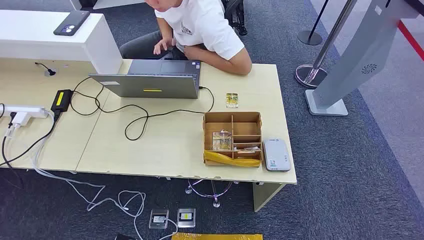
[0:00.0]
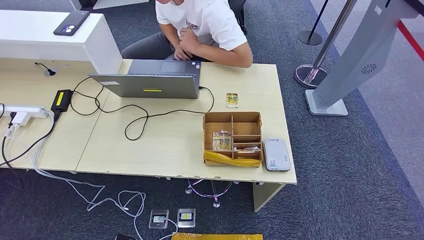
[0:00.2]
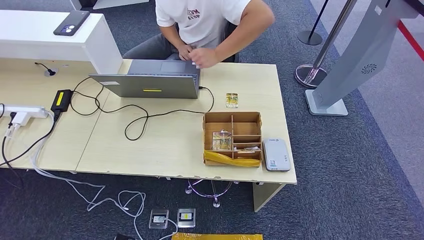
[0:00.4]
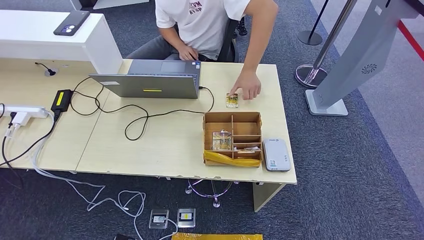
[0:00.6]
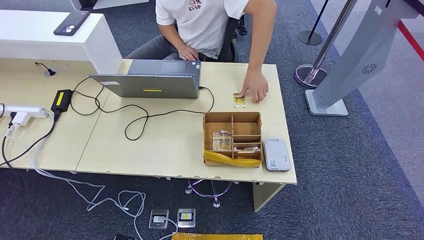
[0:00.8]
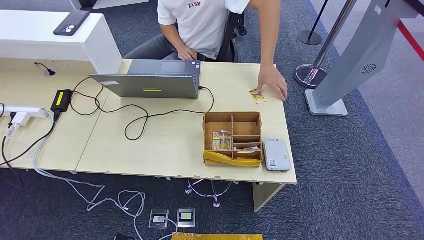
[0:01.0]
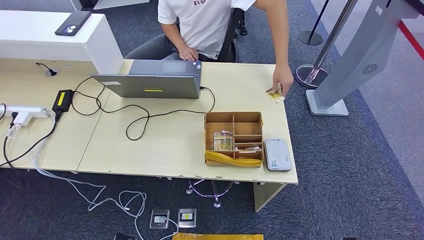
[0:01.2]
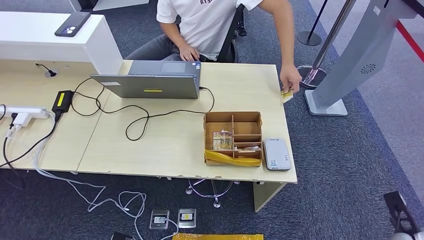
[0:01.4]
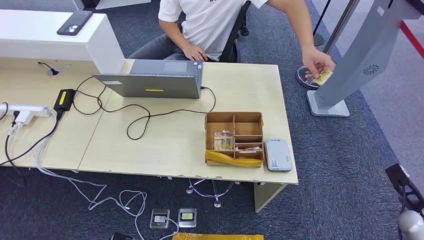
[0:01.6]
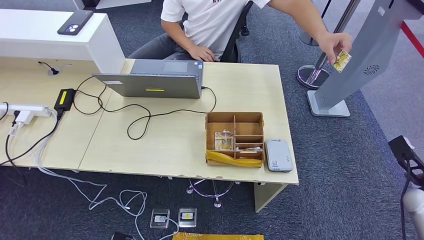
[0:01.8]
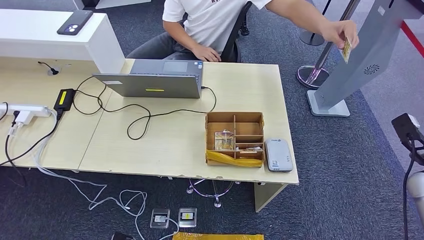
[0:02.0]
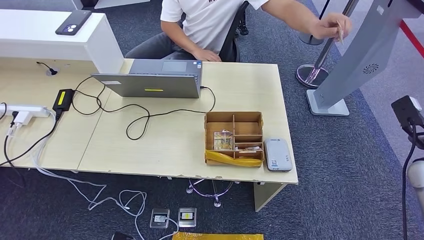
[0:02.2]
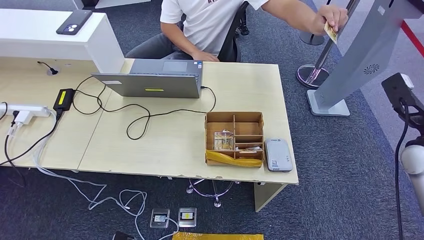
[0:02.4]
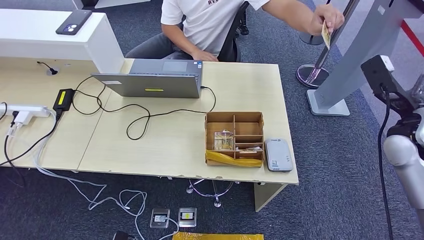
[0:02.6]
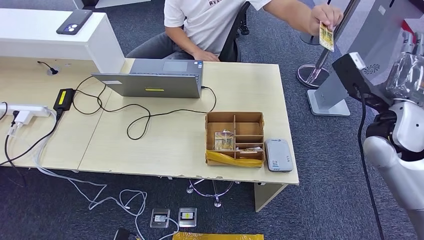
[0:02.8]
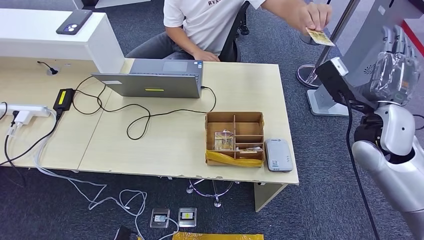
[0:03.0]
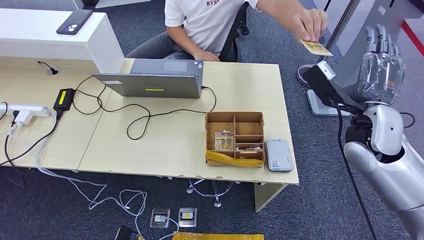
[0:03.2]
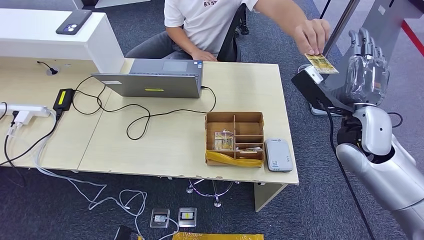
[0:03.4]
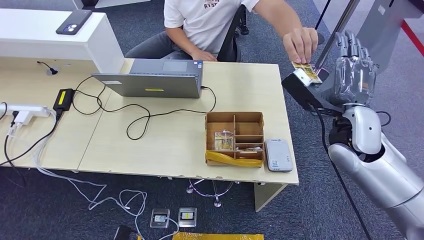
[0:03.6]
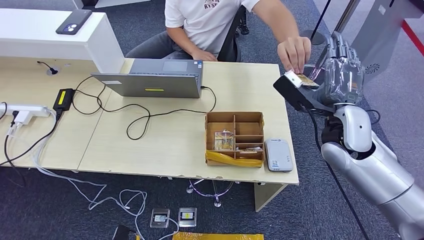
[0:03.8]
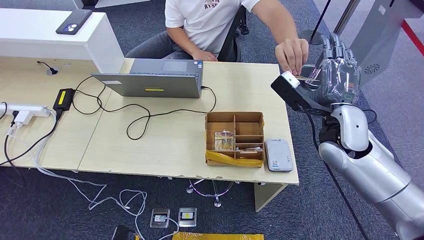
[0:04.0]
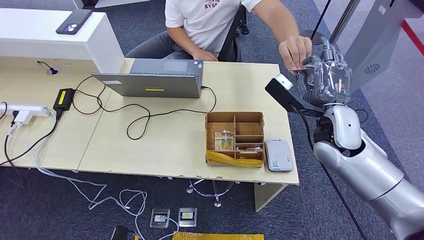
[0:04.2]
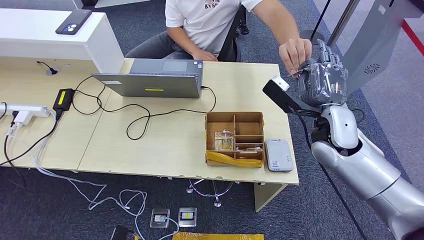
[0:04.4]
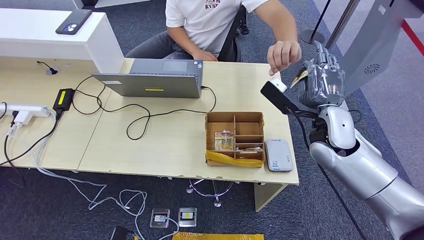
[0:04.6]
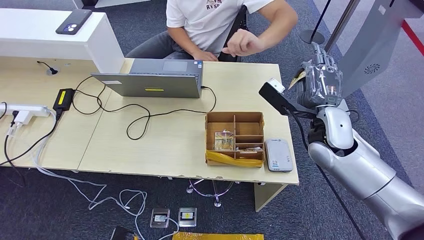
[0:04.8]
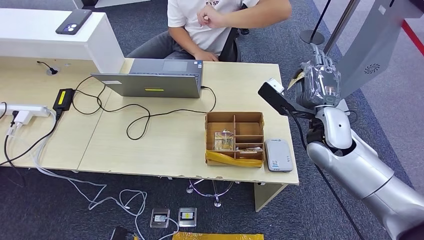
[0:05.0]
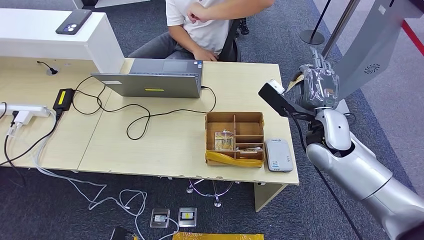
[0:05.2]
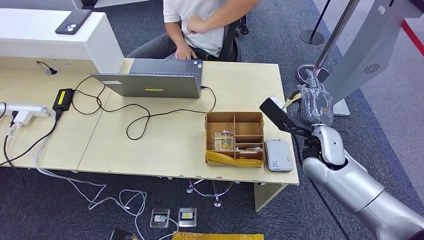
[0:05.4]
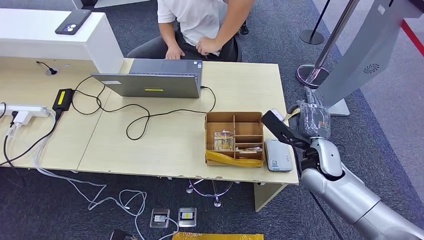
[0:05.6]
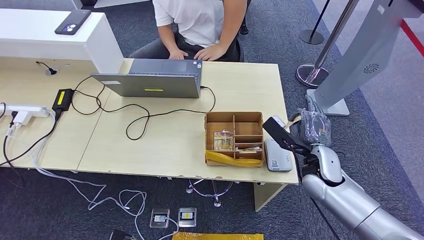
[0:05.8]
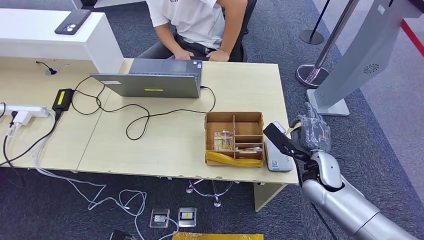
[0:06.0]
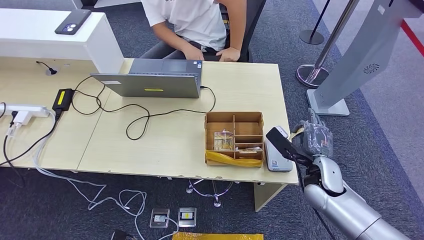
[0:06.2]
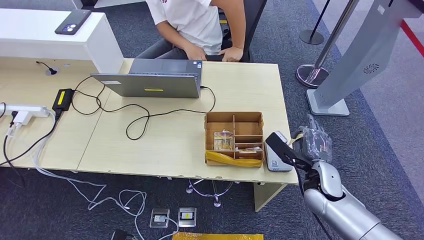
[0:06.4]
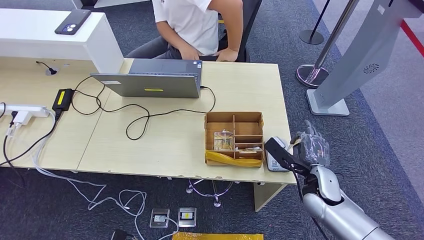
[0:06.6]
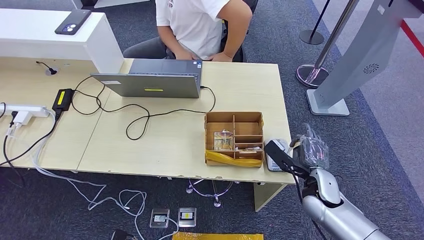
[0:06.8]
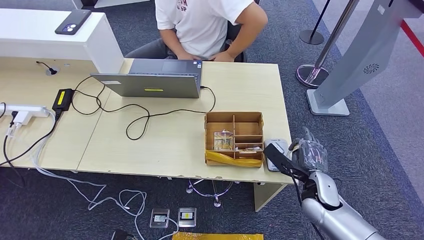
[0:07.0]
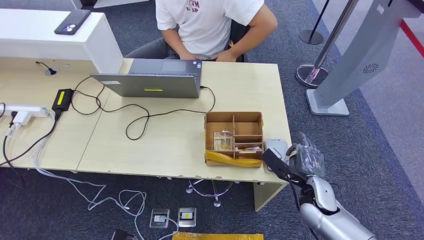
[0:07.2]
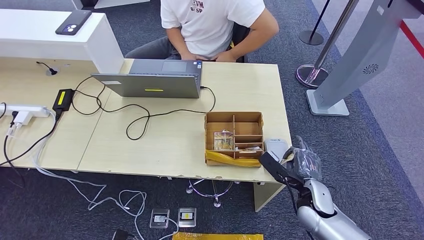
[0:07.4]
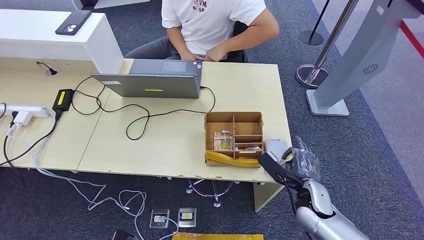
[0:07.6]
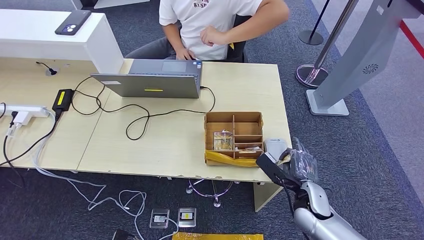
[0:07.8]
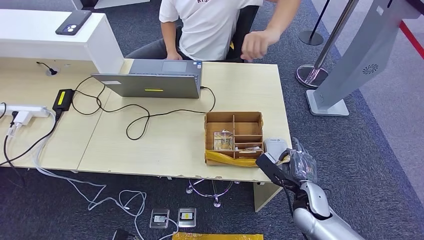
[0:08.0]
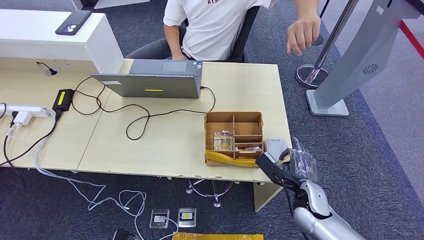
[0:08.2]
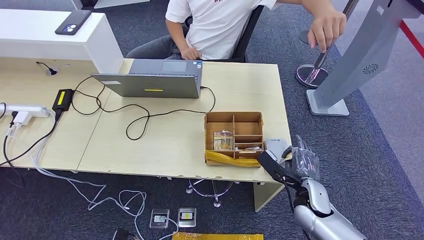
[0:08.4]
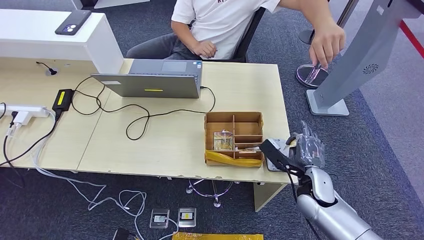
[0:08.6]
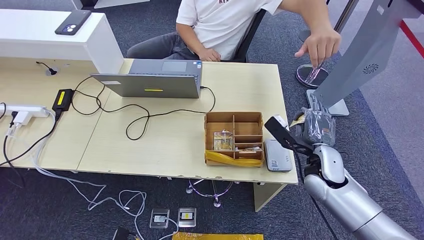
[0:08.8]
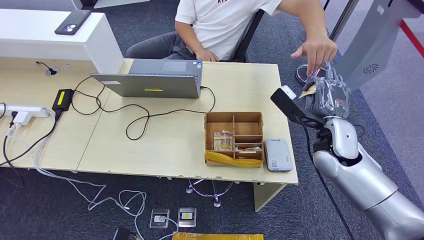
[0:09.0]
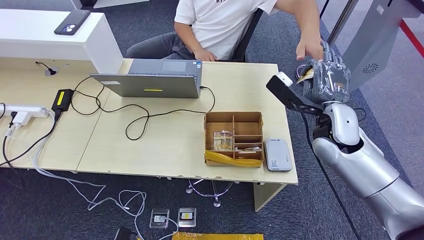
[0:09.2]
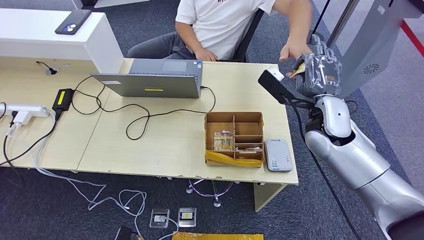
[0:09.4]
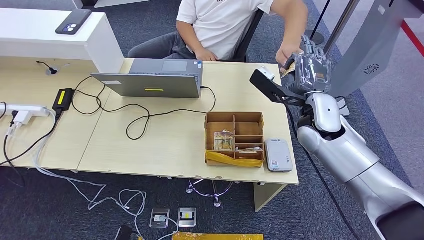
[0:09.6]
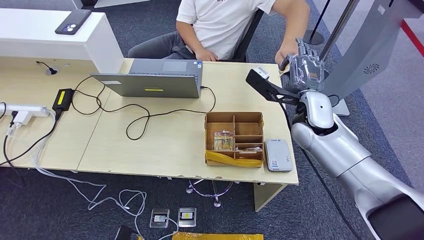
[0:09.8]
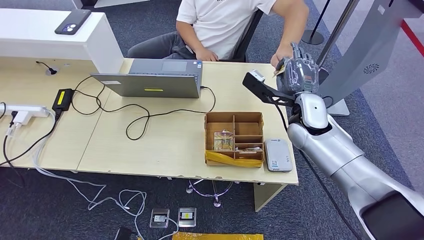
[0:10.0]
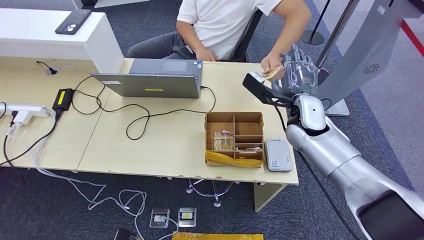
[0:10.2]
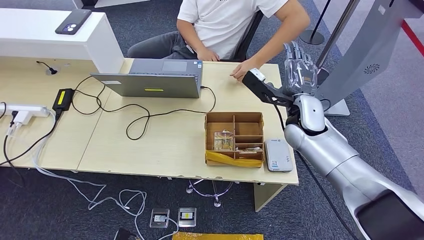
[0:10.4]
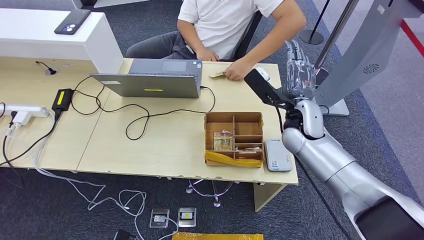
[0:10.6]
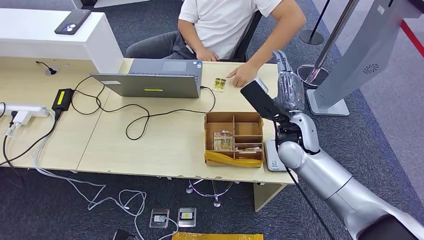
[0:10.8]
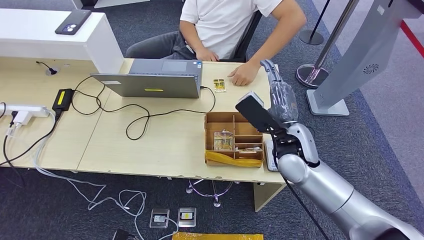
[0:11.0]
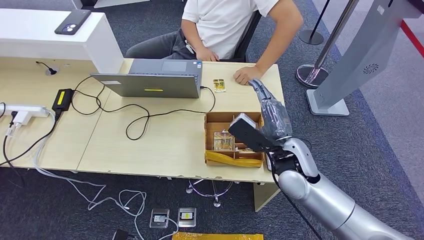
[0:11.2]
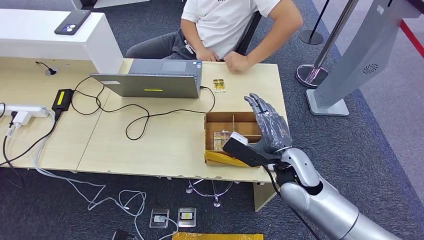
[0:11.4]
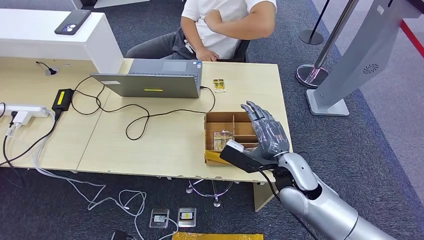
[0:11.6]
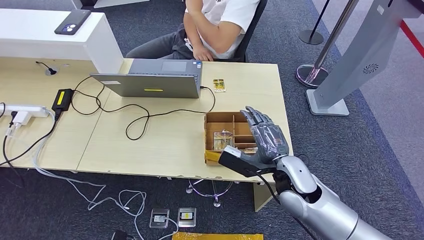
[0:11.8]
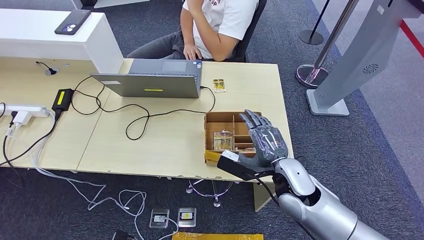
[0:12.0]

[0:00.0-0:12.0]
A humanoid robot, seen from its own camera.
Step, 0:00.0 to 0:05.2: Take the ID card from the person's hand.
Step, 0:05.4 to 0:07.6: Place the ID card on the card reader.
Step, 0:07.8 to 0:10.6: Hand the ID card to the person.
0:01.6 to 0:03.0: The right hand goes some 35 cm upward, to the left and forward.
0:03.0 to 0:04.4: The right hand moves to the left, some 5 cm.
0:06.0 to 0:07.6: The right hand is displaced downward by some 5 cm.
0:07.6 to 0:09.0: The right hand moves upward and forward, approximately 20 cm.
0:09.0 to 0:10.4: The right hand shifts approximately 10 cm to the left and forward.

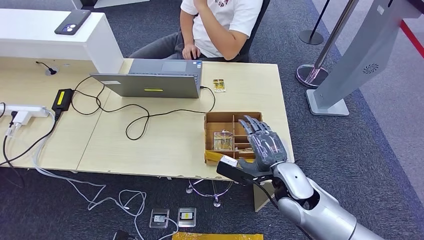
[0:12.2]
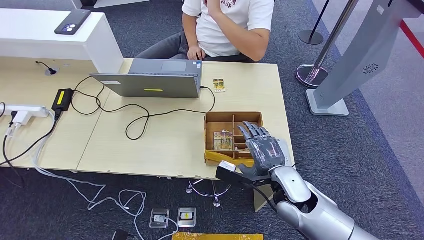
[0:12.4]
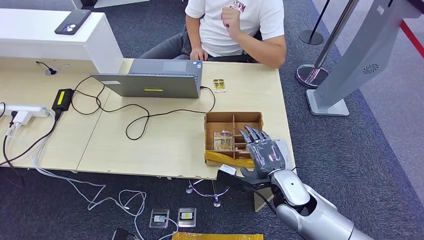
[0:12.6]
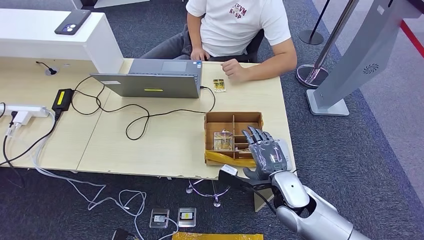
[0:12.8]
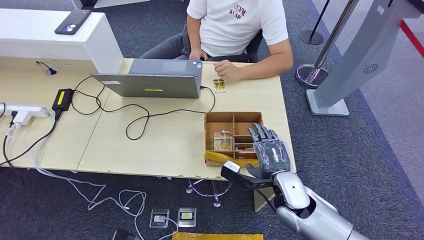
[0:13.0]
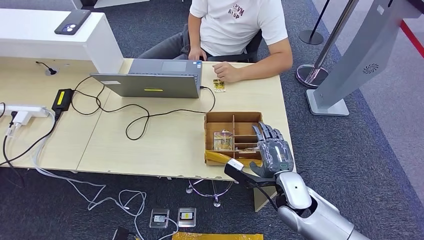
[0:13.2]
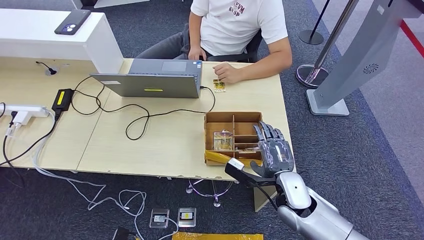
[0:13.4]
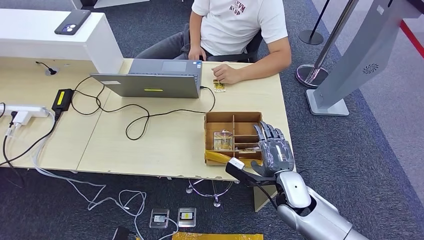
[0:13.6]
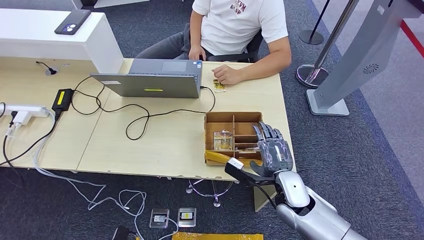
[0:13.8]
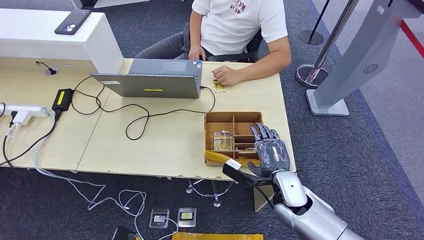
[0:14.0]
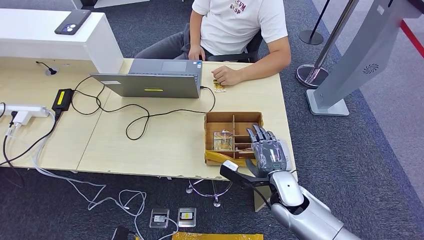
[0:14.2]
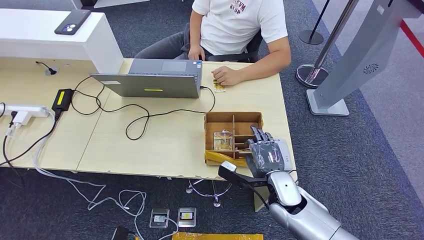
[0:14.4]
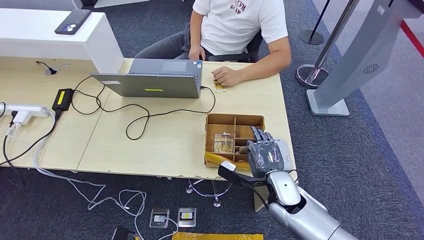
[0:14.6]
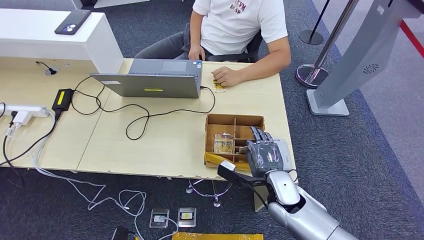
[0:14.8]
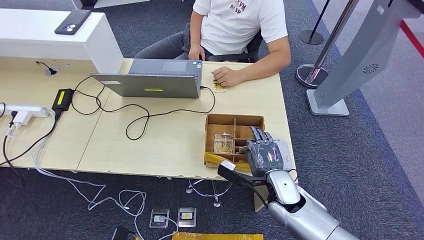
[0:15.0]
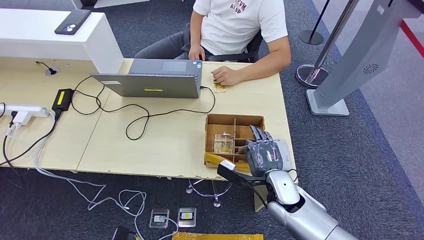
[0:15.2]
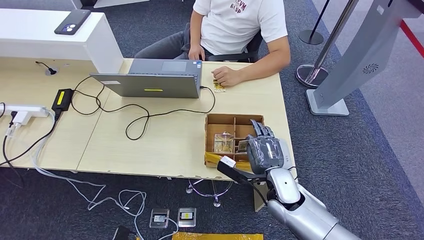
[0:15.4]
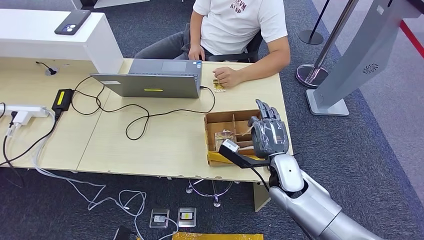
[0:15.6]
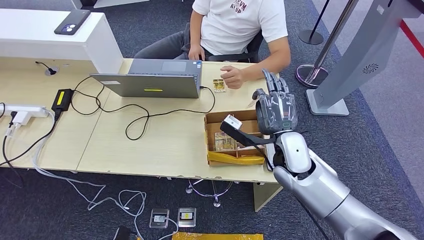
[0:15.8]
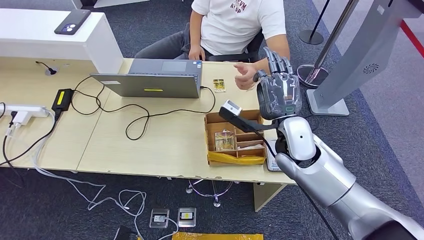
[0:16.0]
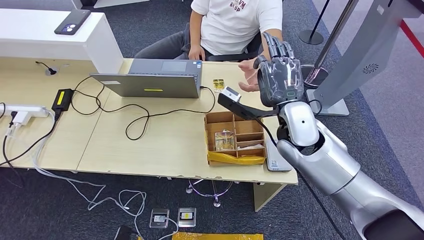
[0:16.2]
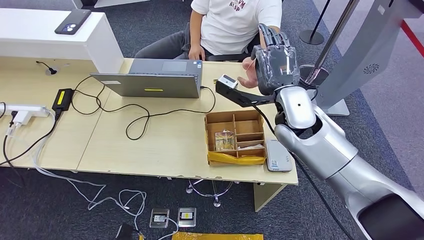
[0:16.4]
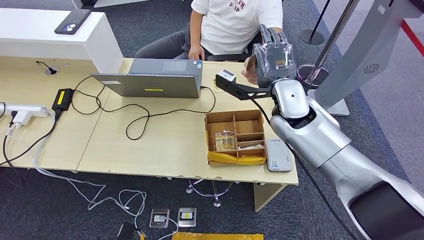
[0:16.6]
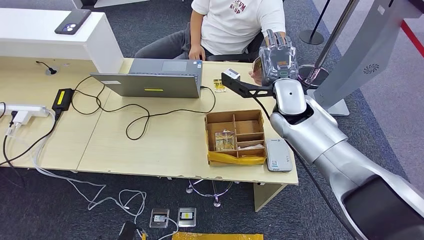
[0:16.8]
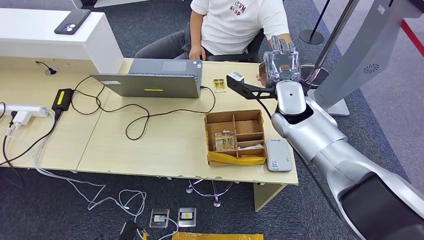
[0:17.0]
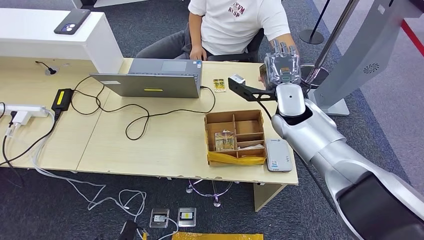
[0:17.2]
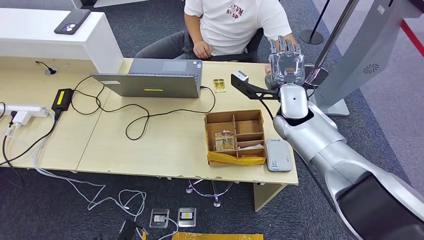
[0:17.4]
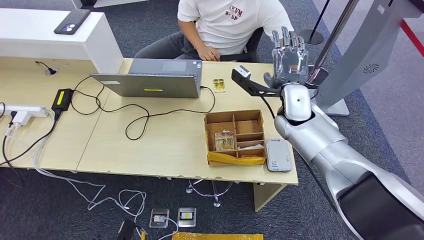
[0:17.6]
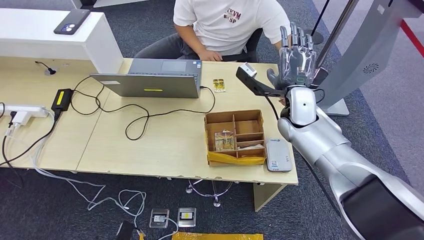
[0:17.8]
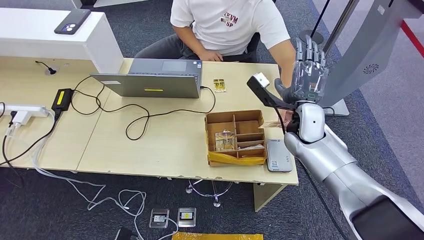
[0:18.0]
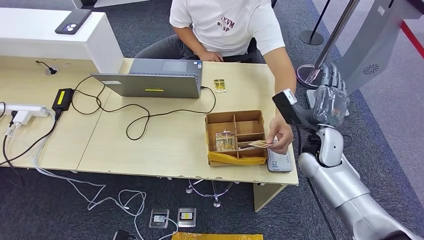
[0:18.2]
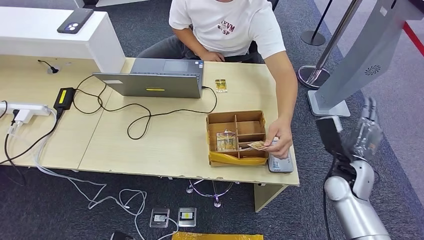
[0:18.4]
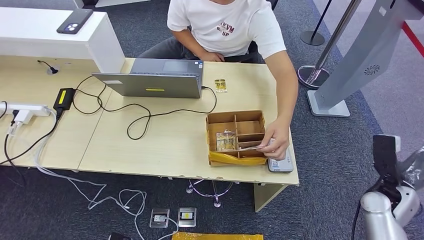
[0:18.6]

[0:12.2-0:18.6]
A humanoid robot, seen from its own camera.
Step, 0:12.2 to 0:15.6: Pick up the room key from the key card box.
Step, 0:15.8 to 0:18.6: Hand the room key to the person.
0:12.2 to 0:13.8: The right hand travels downward by approximately 5 cm.
0:13.8 to 0:15.4: The hands stay close to where they were, moving slightly.
0:15.4 to 0:17.0: The right hand heads upward and forward, covering about 20 cm.
